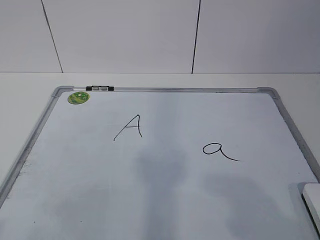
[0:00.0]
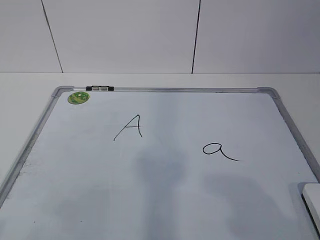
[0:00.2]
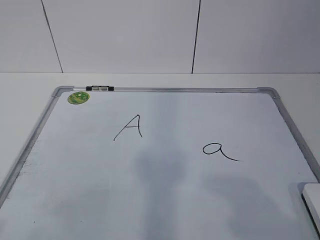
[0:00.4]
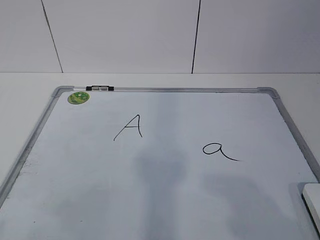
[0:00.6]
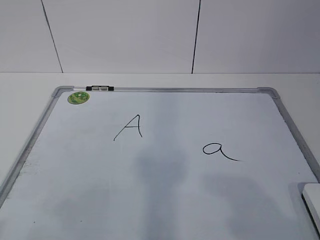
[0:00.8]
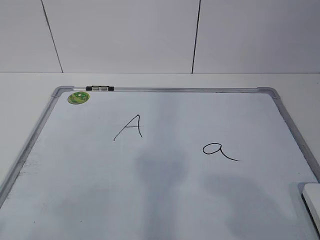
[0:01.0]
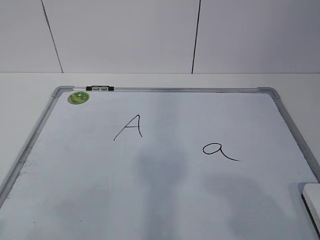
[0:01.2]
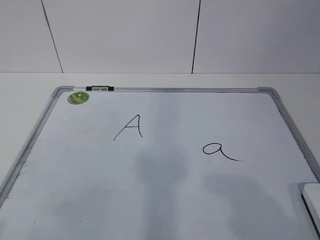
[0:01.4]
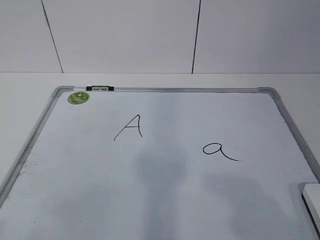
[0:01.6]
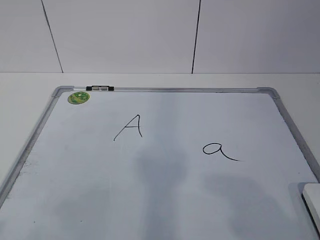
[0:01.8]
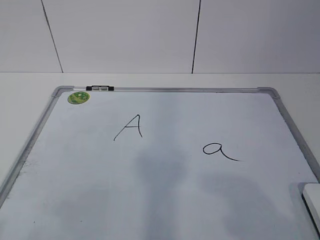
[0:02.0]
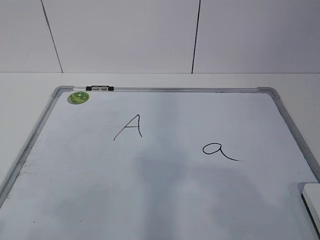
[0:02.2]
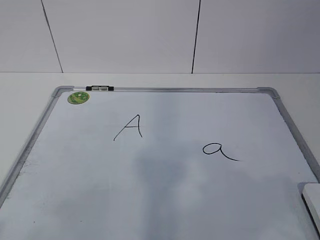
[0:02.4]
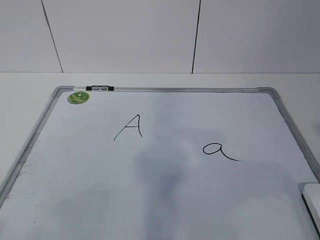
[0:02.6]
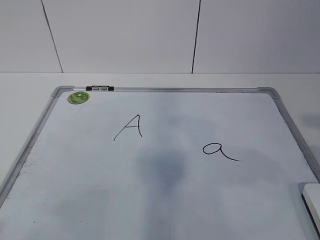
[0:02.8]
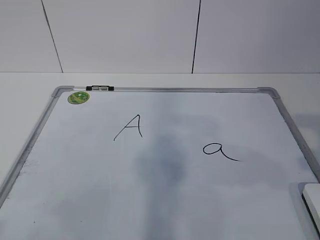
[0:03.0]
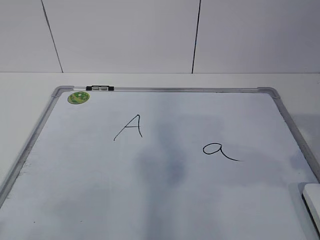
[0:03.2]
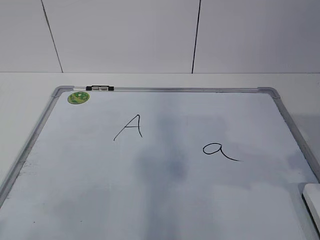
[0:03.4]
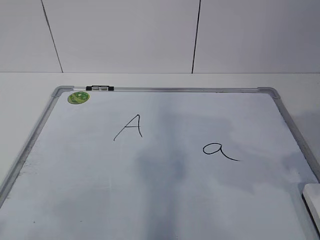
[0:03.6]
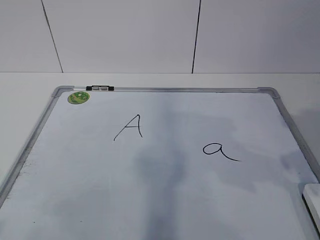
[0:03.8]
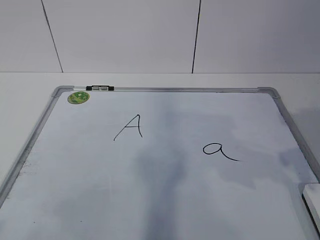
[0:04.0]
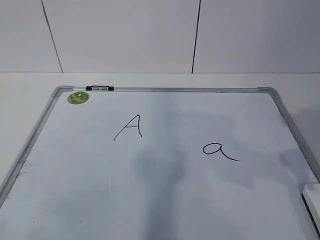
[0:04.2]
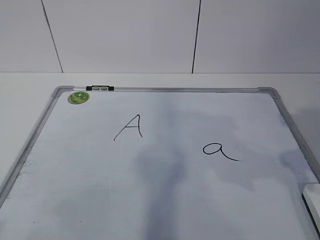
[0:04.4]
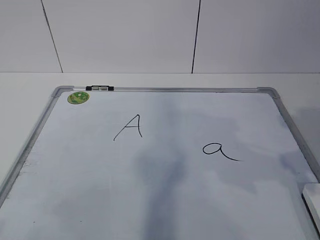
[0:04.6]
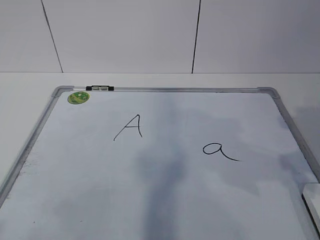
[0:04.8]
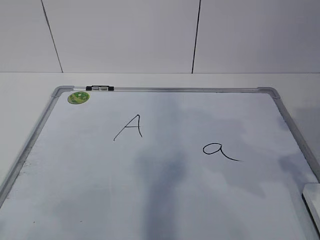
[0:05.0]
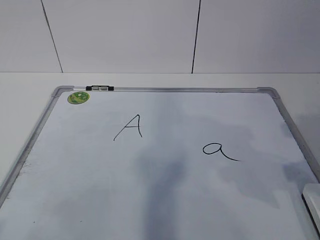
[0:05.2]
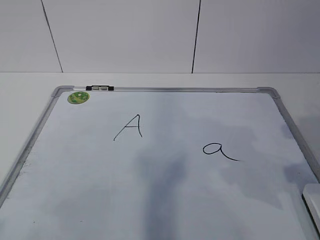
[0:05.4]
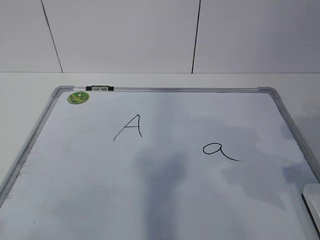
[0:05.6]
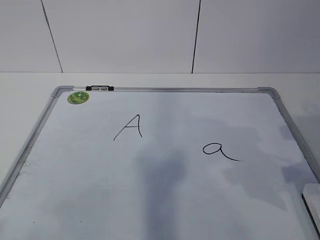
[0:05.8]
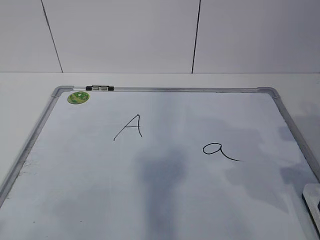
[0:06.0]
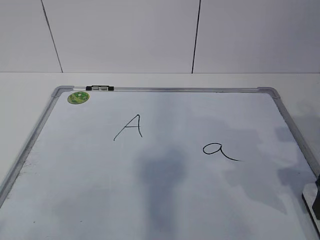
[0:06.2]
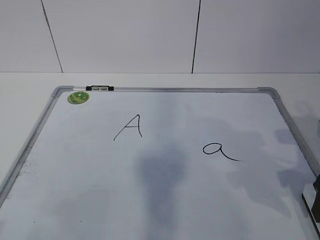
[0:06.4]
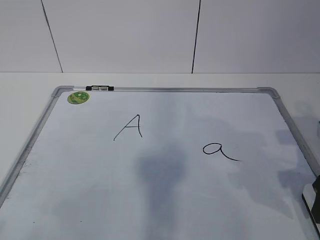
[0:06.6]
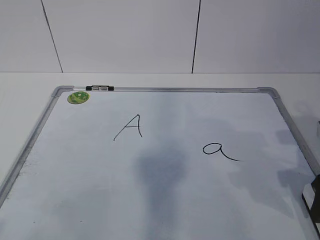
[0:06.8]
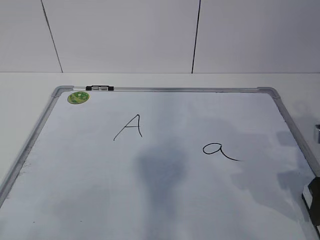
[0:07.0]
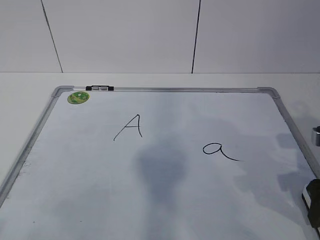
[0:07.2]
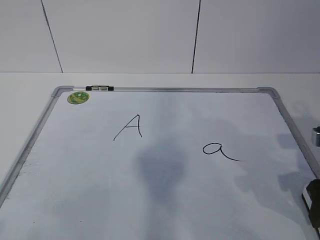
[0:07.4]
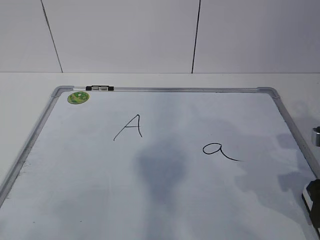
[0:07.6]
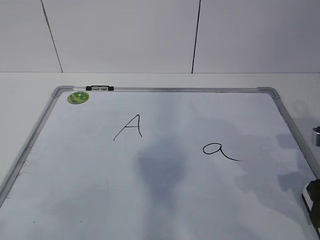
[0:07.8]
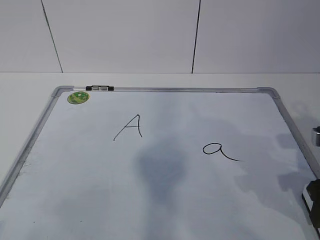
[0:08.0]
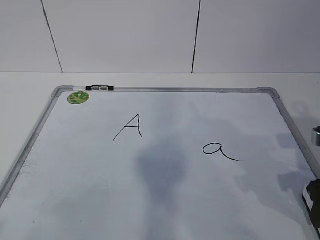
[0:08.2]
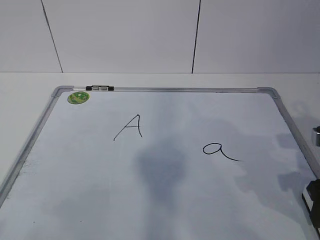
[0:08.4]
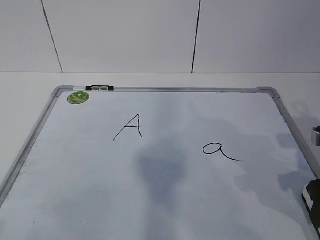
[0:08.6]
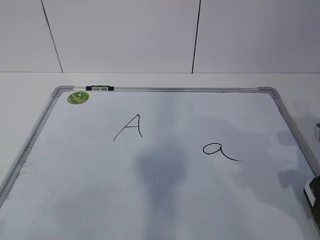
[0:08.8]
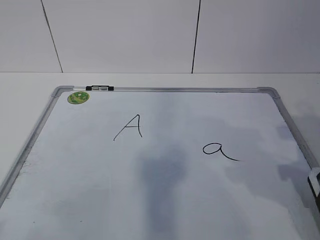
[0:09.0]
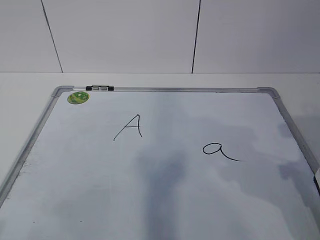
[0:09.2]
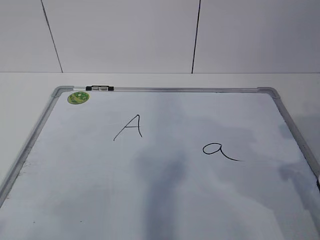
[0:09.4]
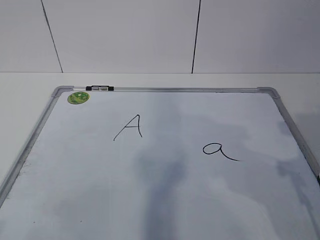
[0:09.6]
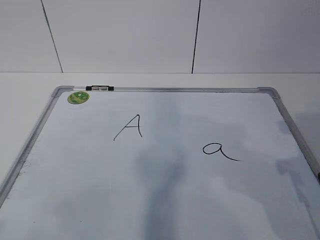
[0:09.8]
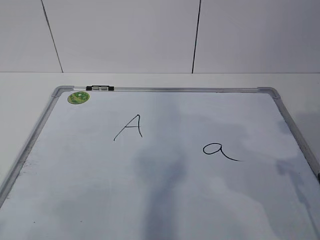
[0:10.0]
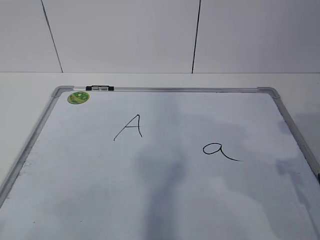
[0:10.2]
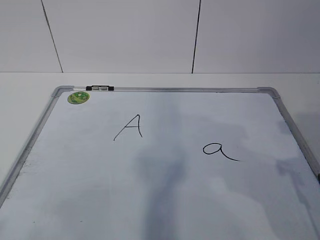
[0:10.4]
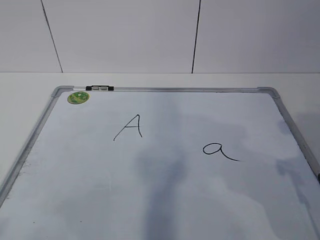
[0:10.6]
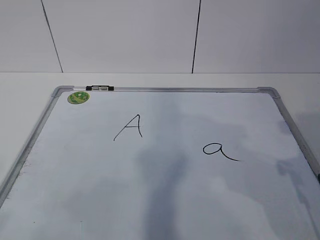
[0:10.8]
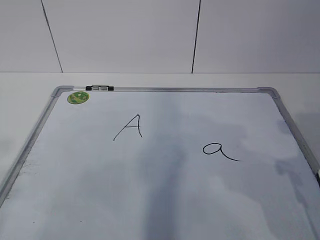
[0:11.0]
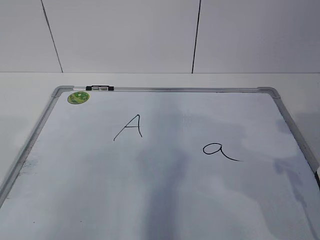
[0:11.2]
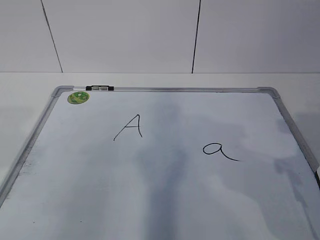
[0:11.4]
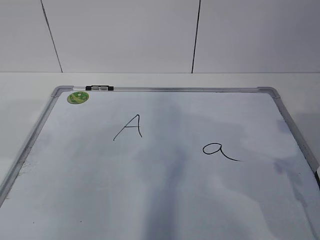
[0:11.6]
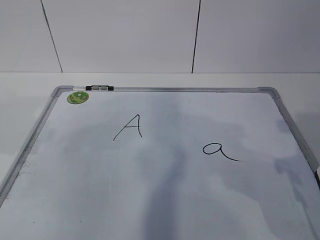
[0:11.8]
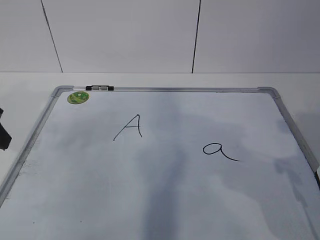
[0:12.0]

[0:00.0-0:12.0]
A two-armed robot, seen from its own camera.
Task of the whole recording: pick up the eraser on the blackboard and erase the letter "a".
0:06.0 to 0:07.6: The right gripper closes up.
0:07.6 to 0:09.0: There are only small adjustments of the grippers.
0:09.0 to 0:10.4: The right gripper moves about 5 cm.
0:10.4 to 0:12.0: The left gripper goes some 25 cm forward, and opens.

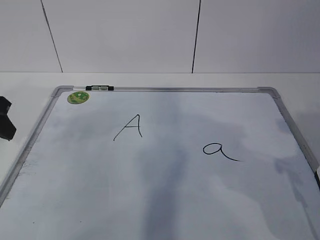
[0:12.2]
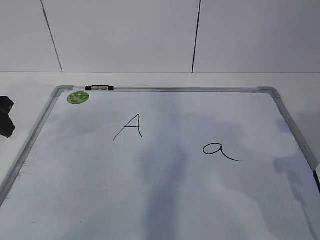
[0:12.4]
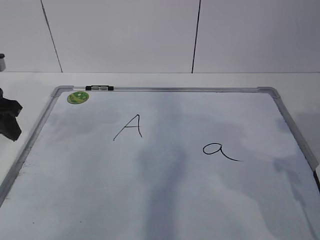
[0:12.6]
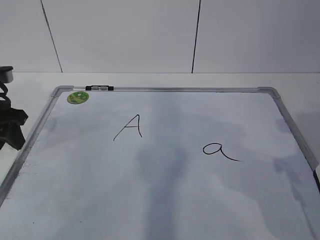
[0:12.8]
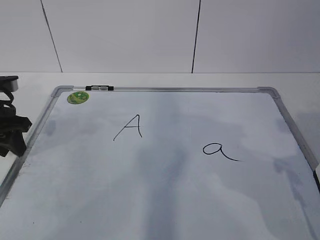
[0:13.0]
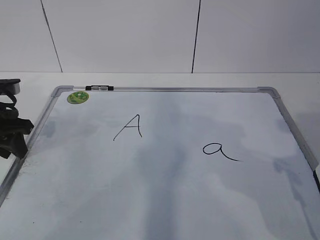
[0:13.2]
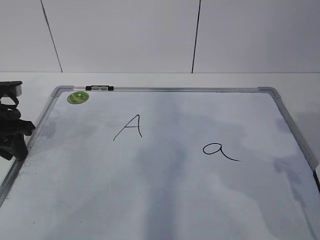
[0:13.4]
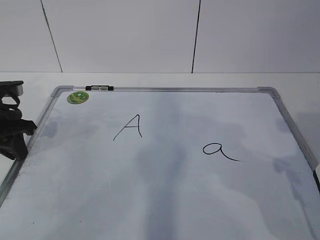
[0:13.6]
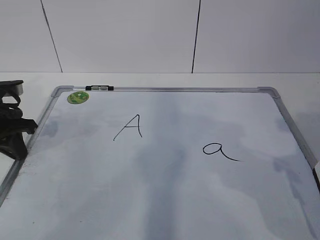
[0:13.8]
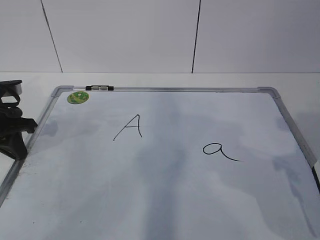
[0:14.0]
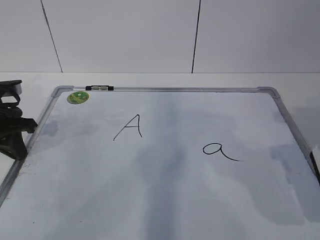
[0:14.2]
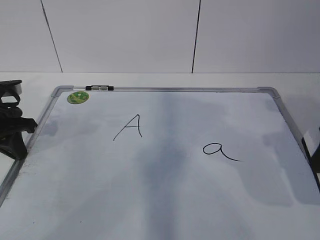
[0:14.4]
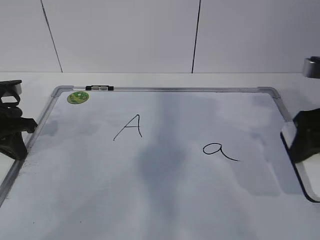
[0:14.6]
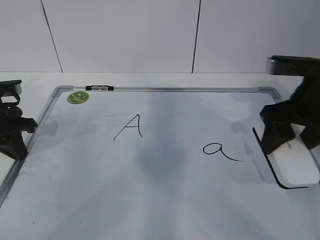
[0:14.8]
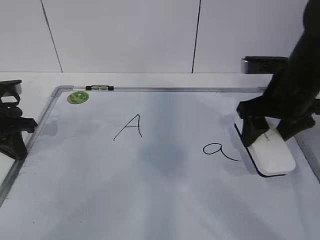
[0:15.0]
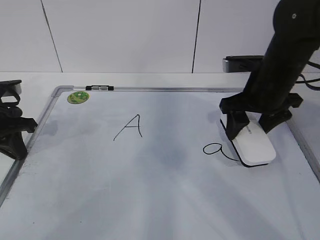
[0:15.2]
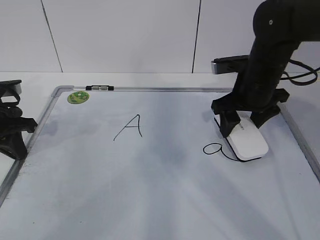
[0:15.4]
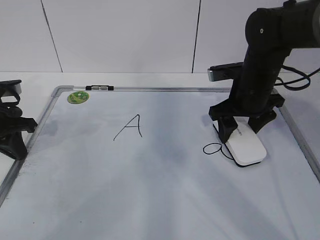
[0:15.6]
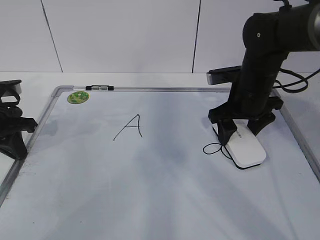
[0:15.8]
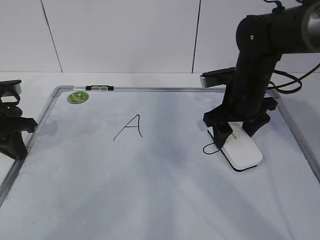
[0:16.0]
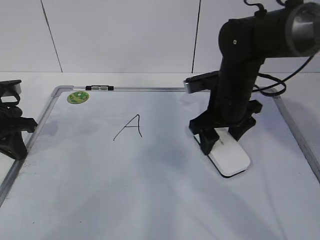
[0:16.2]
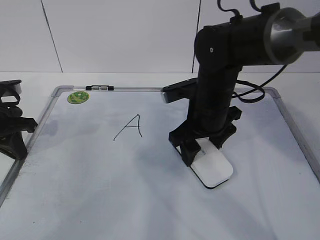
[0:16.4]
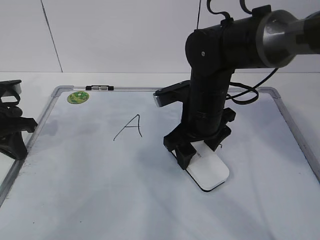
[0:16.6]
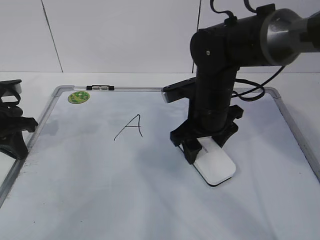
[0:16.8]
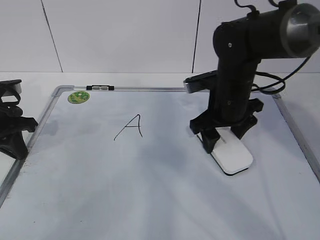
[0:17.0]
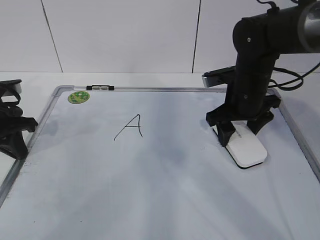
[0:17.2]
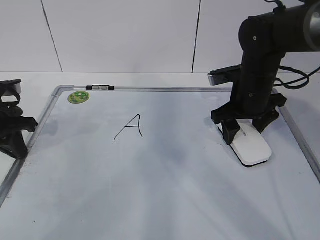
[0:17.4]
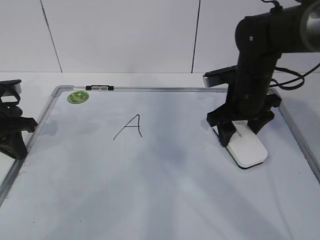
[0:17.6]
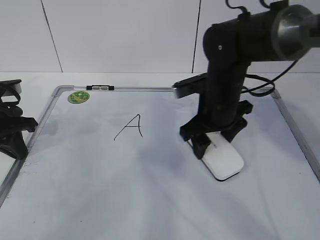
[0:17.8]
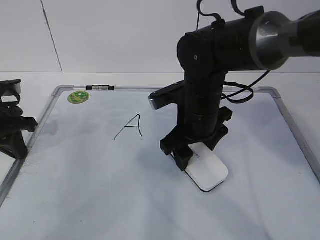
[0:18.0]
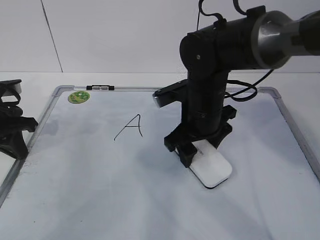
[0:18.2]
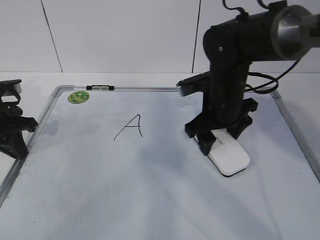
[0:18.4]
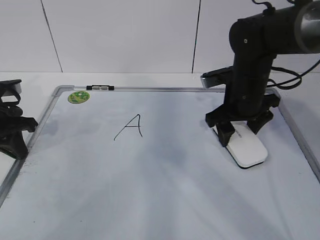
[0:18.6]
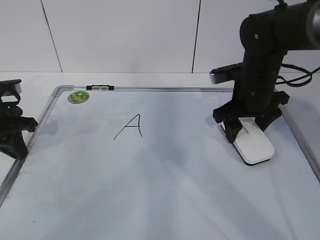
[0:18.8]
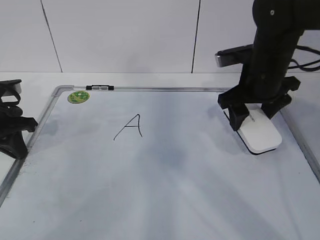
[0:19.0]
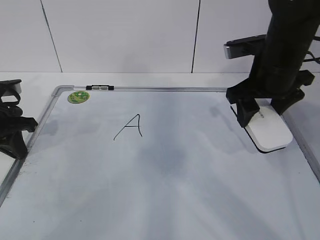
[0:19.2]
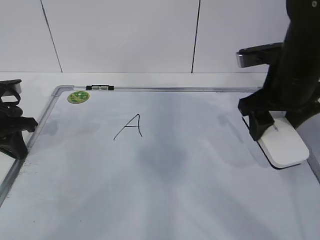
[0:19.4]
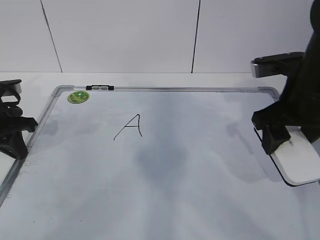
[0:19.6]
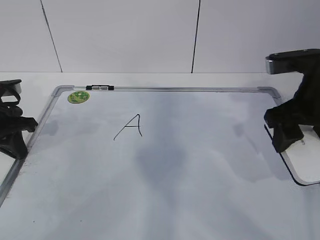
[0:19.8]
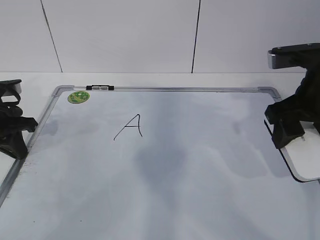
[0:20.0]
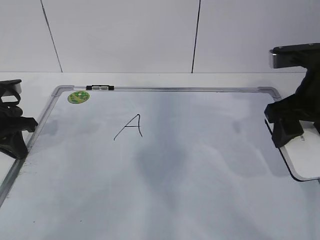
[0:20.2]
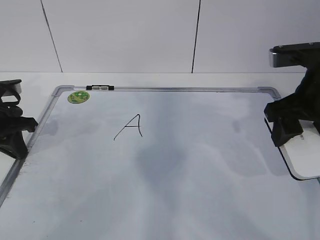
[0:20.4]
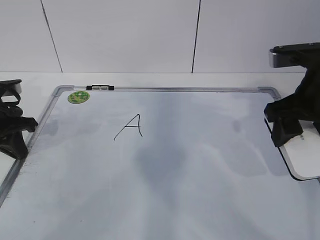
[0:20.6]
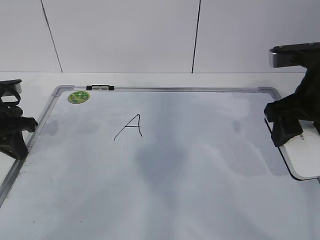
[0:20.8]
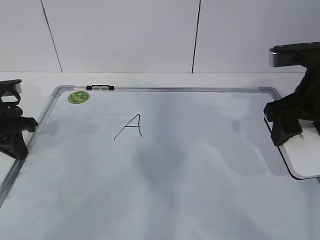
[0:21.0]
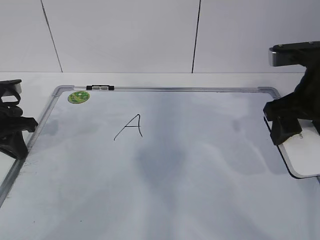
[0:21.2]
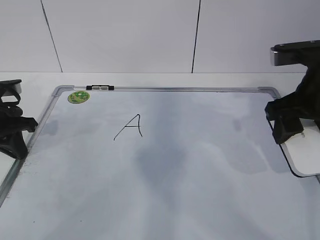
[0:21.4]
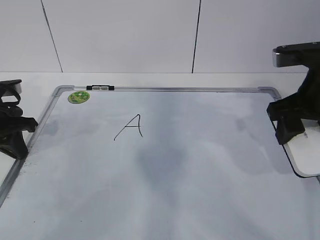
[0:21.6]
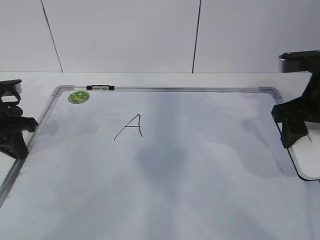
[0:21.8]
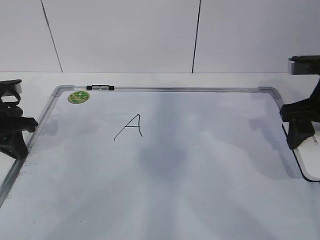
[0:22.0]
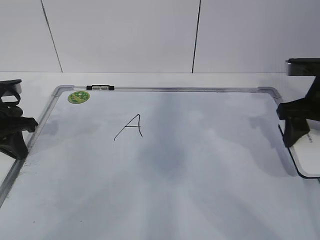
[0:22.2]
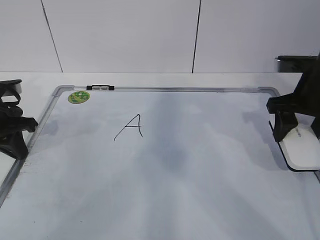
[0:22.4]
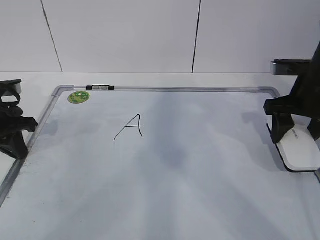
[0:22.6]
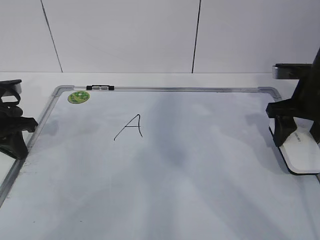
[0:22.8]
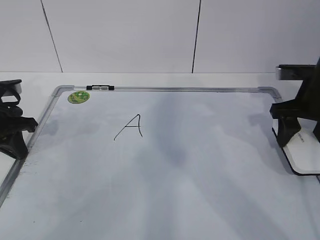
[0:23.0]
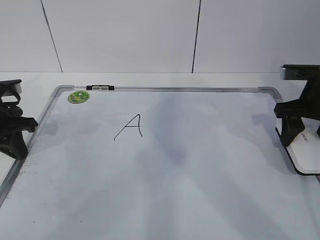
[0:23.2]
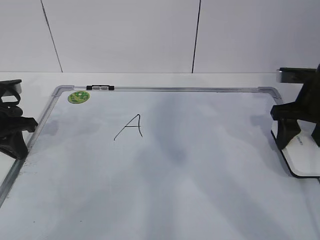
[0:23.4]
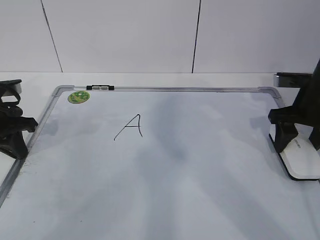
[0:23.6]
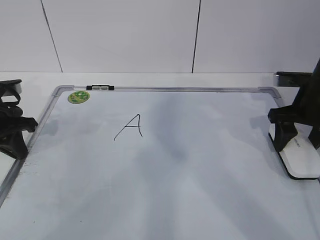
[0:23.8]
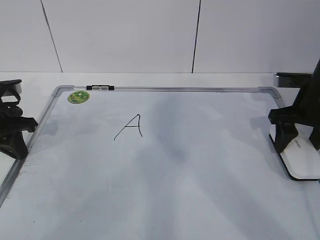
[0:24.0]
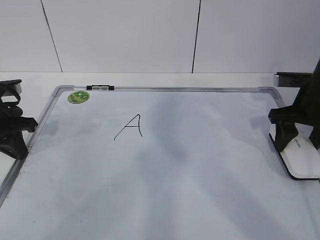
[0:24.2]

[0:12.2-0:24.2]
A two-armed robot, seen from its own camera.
Task of the whole recording: pick up the eraser on the blackboard and erase the letter "a".
Step, 0:12.2 to 0:15.6: Erase the letter a with your right hand.
Step, 0:15.8 to 0:20.4: Put down the eraser with your right hand.
0:12.2 to 0:13.8: The left gripper goes about 10 cm downward and forward, and closes up.
0:13.8 to 0:15.2: The right gripper travels forward and to the left by roughly 20 cm.
0:15.2 to 0:16.6: The right gripper moves to the left, approximately 10 cm.
0:16.6 to 0:18.2: The right gripper travels to the right and back again, some 10 cm each way.
0:18.2 to 0:19.8: The right gripper shifts approximately 15 cm to the right, upward and backward.
0:19.8 to 0:21.2: Both grippers stay put.
0:21.2 to 0:22.6: The right gripper travels forward by roughly 5 cm.
0:22.6 to 0:24.2: The grippers move only a little.
